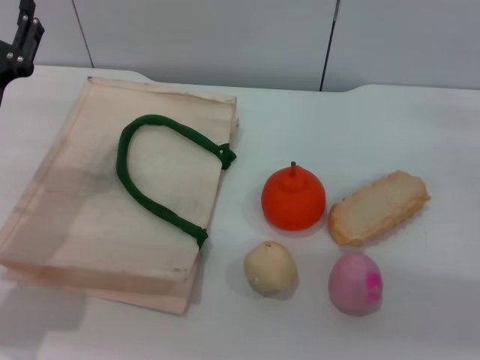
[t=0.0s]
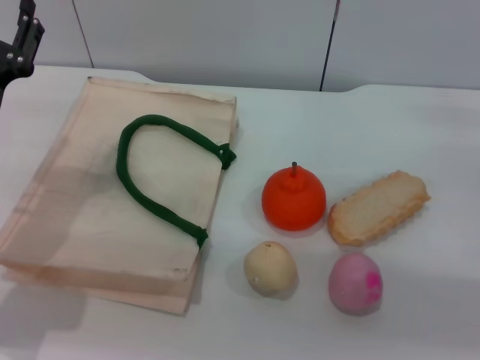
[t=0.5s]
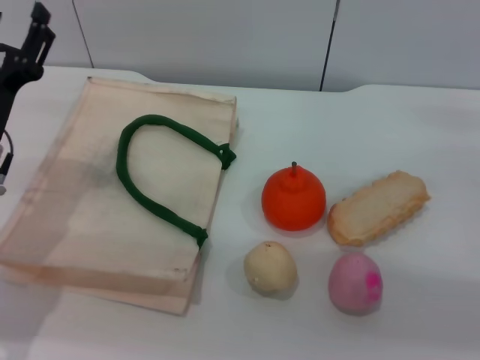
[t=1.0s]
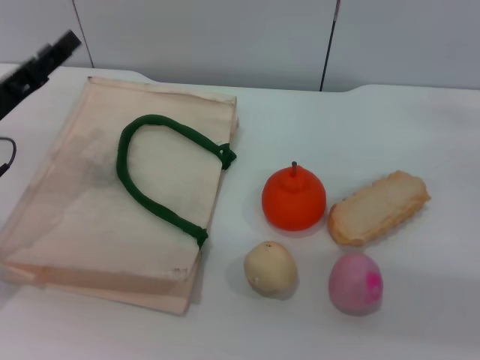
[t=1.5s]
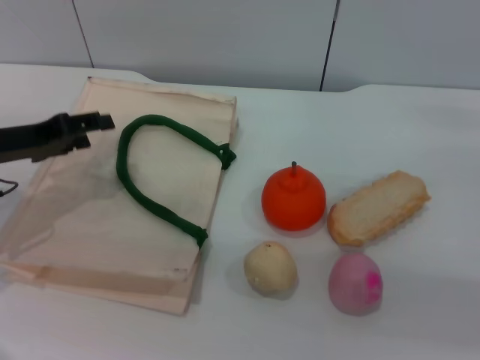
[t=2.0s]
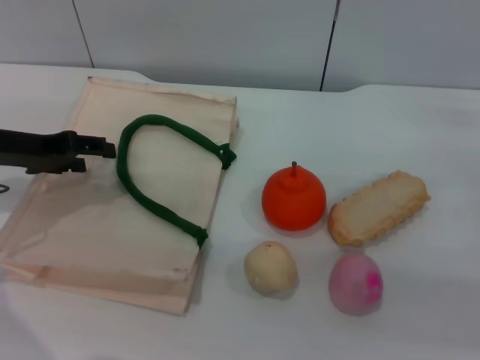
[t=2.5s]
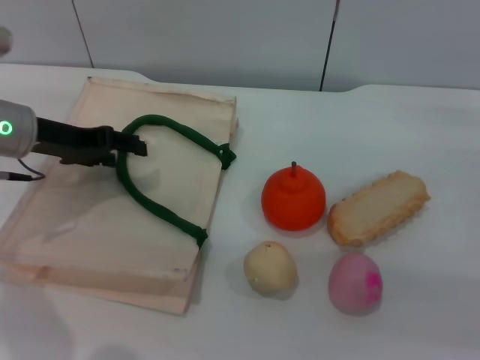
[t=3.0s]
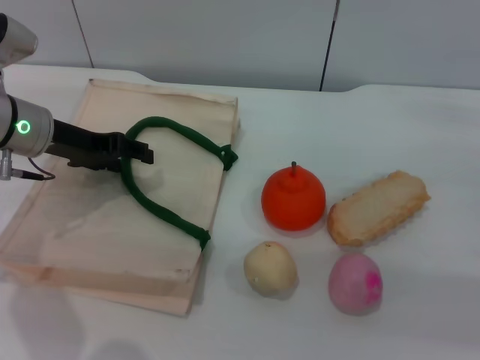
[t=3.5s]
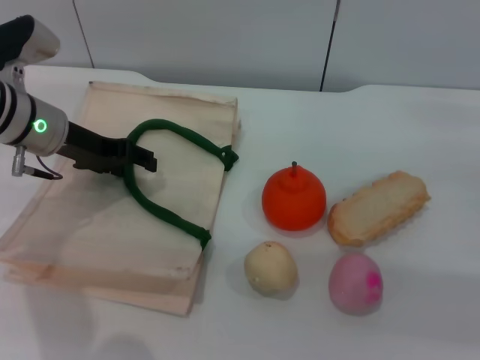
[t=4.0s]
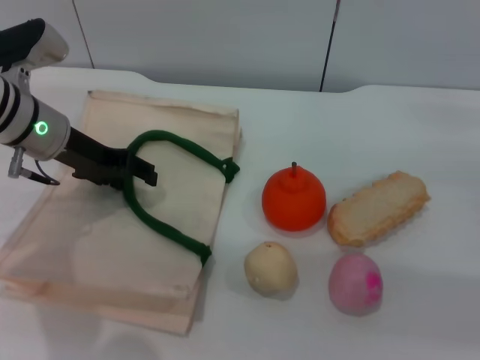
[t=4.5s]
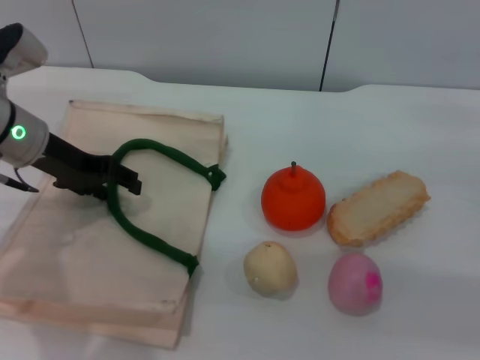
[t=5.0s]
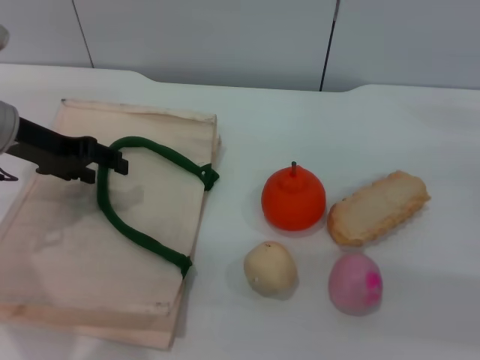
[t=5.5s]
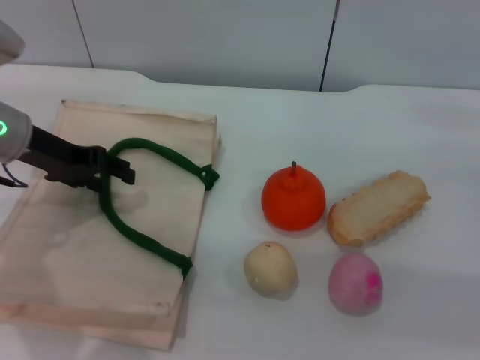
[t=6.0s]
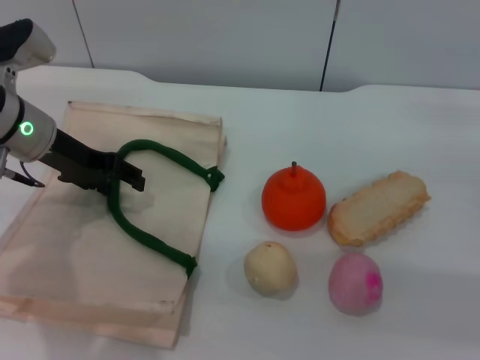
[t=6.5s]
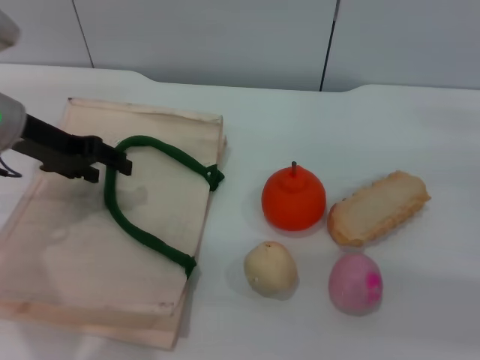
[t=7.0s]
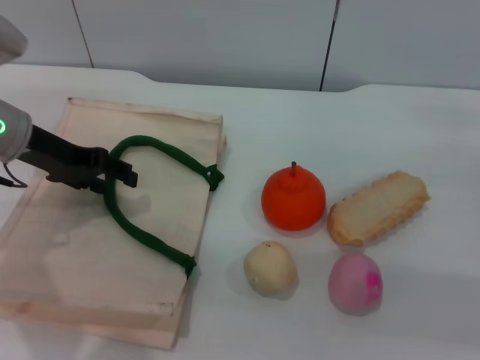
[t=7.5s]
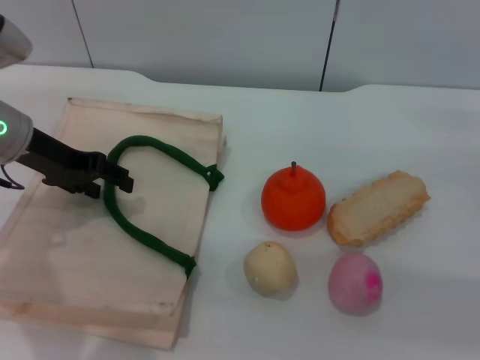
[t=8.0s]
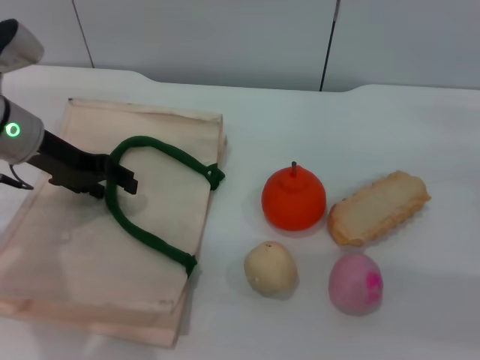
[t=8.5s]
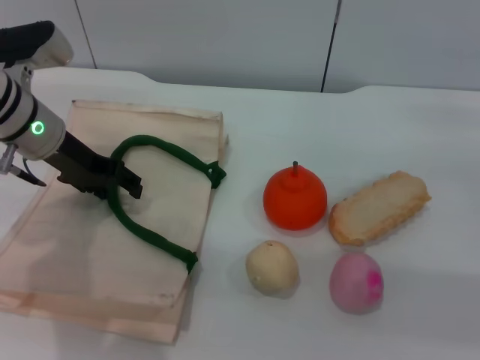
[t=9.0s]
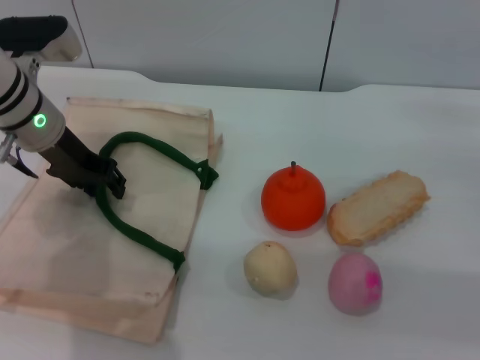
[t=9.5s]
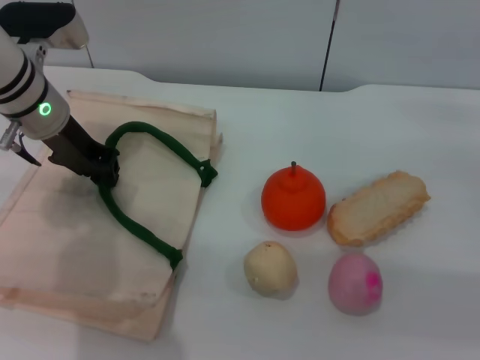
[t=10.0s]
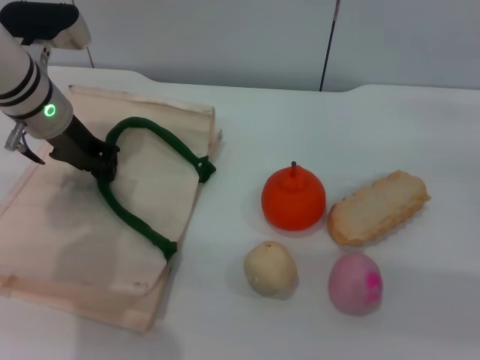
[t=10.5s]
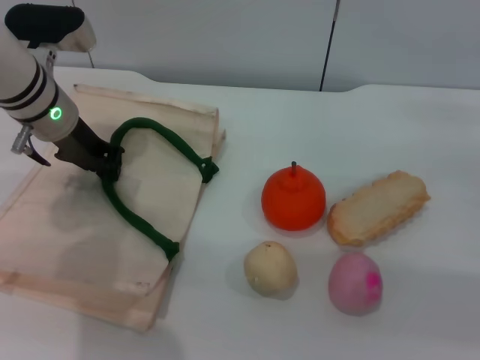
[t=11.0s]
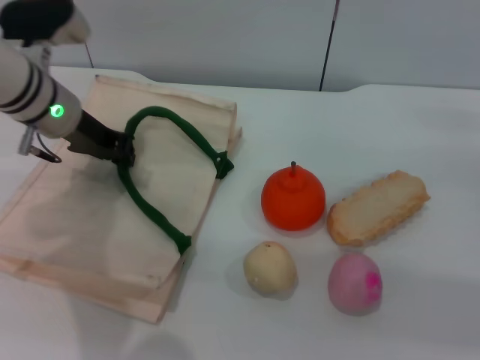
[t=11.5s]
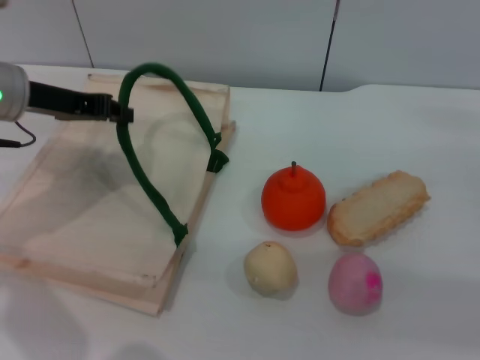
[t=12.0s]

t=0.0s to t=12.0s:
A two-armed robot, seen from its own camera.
Task of the whole recording: pick up the egg yolk pastry from the table and place it in the white handbag.
Step, t=0.0s to t=12.0s: Lift the woven bag with the left gripper to open it.
t=0.0s to t=2.0s: The left gripper is displaced to the left by roughly 5 cm.
t=2.0s to t=4.0s: The left gripper moves forward and to the right, approximately 10 cm.
t=4.0s to t=8.0s: The grippers move only a little.
t=8.0s to t=10.0s: The left gripper changes place by approximately 5 cm, and closes up.
t=10.0s to t=12.0s: The left gripper moves approximately 5 cm, and closes.

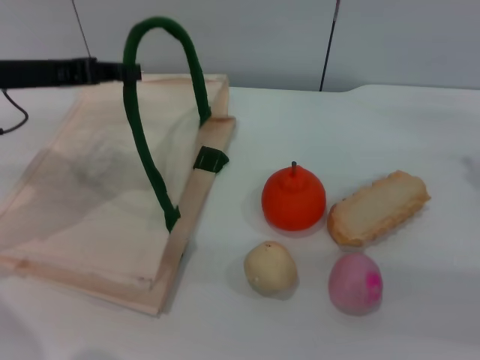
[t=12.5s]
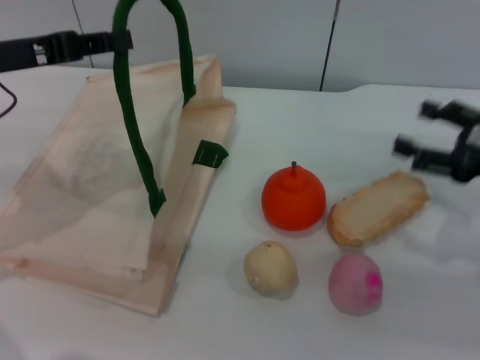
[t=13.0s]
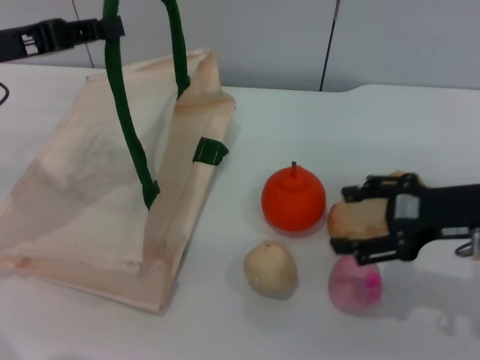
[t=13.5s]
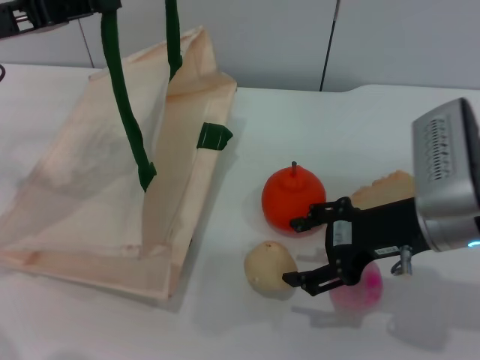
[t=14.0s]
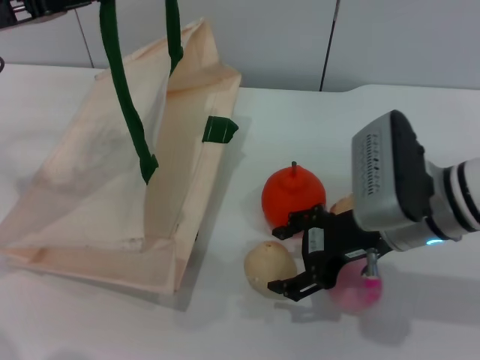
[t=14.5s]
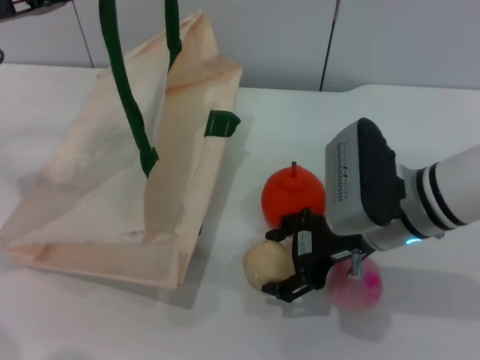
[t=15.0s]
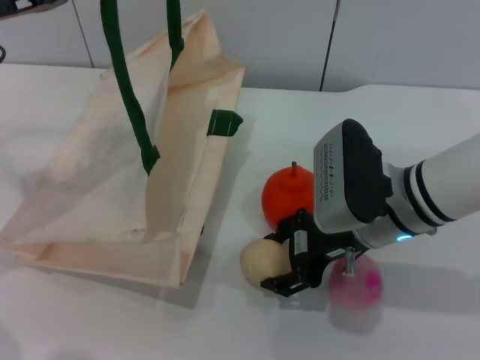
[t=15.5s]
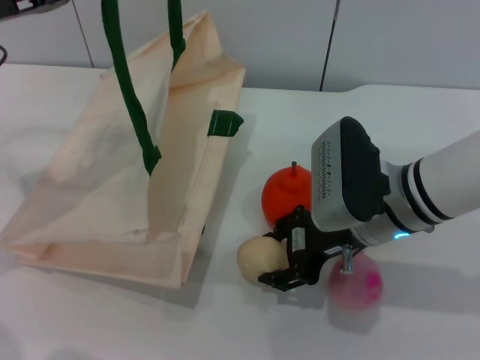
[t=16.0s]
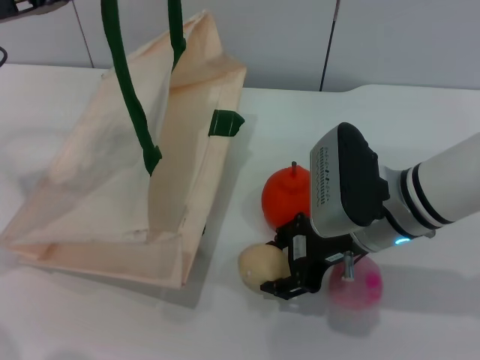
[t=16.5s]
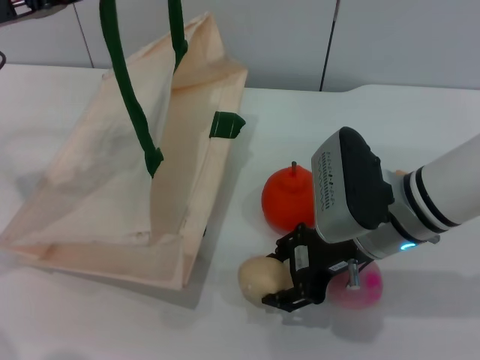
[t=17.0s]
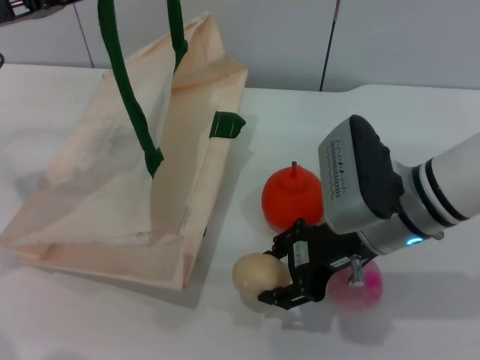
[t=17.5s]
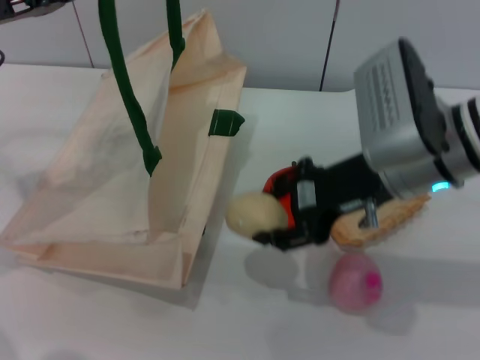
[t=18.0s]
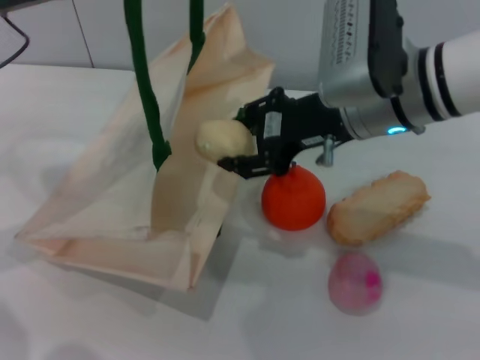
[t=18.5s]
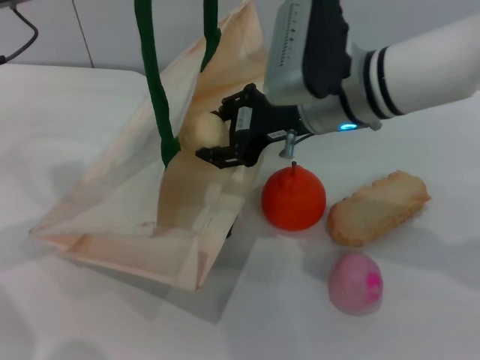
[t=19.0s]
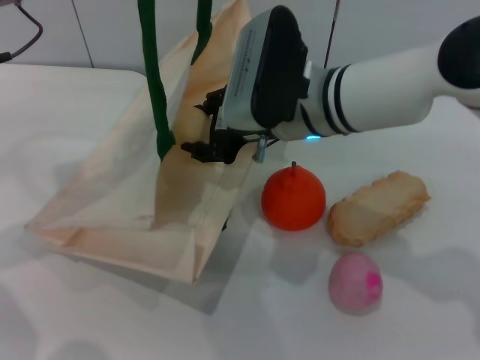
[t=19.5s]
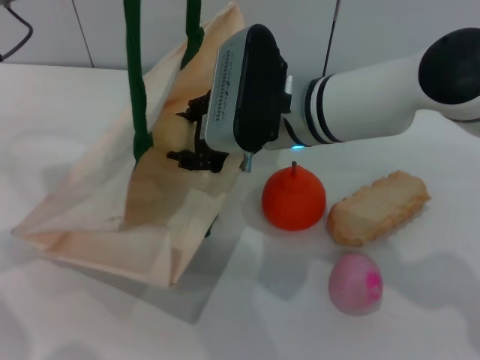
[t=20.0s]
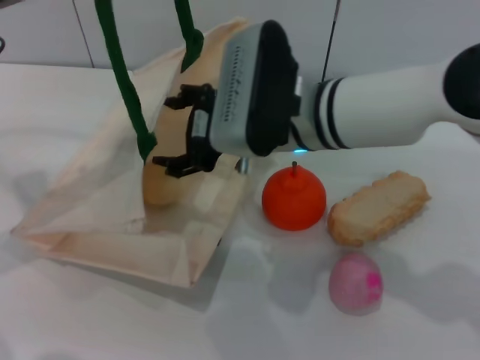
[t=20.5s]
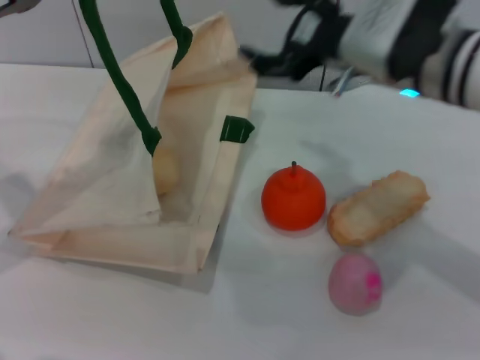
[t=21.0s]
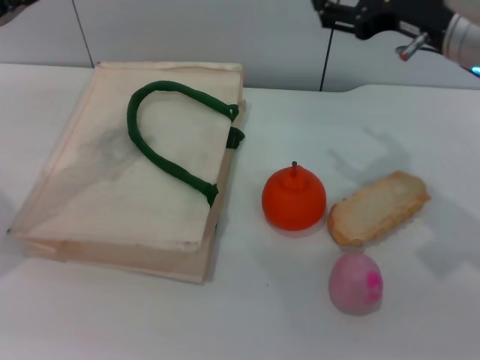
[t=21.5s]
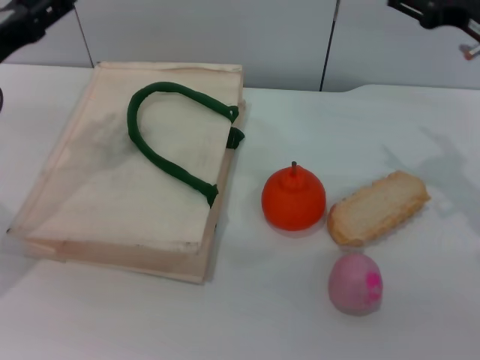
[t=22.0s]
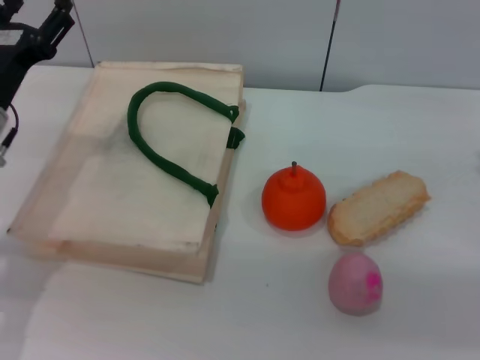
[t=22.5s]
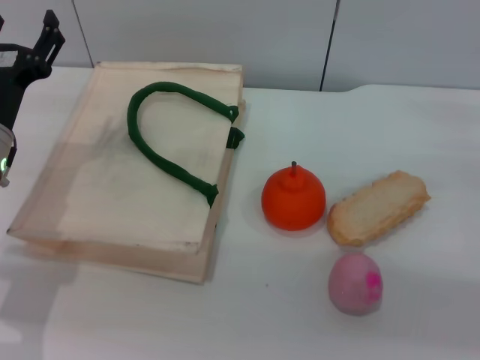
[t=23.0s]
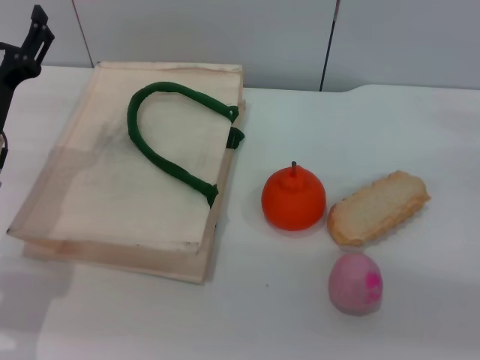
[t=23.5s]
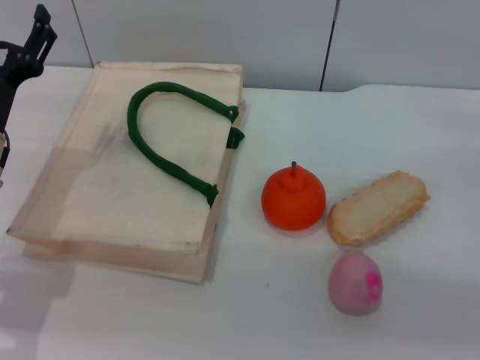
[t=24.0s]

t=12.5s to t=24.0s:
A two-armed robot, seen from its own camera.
Task of the whole recording: pick up the egg yolk pastry from the table and place it in the white handbag.
Step, t=12.5s to t=18.0s: Pick up the egg yolk pastry with the right gripper.
Step, t=18.5s to t=20.5s: Place the egg yolk pastry into the woven bag with the right gripper.
Step, t=21.0s to t=21.5s: Lower the woven bag with the left gripper to close it.
t=12.5s to t=14.5s: The right gripper heads to the left, covering about 20 cm.
t=14.5s to t=16.5s: The right gripper closes up.
t=16.5s to t=18.5s: The right gripper moves upward, some 10 cm.
t=18.5s to t=20.0s: The right gripper travels to the left by roughly 5 cm.
t=20.0s to t=22.0s: The right gripper goes some 20 cm to the right, and opens its fingers, while the left gripper heads downward, covering approximately 10 cm, and opens.
t=22.0s to t=24.0s: The left gripper moves downward, some 5 cm. The right gripper heads downward and to the right, covering some 15 cm.
